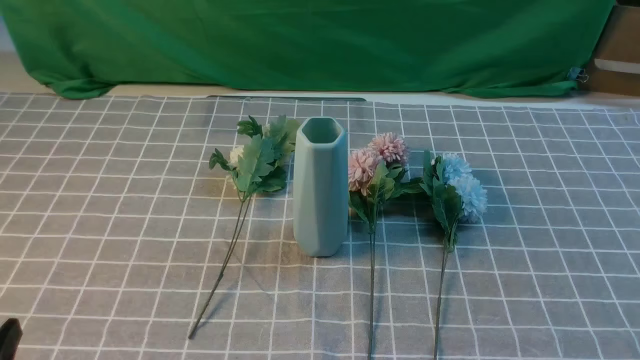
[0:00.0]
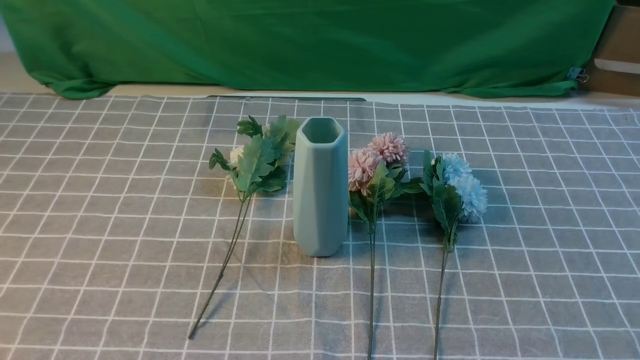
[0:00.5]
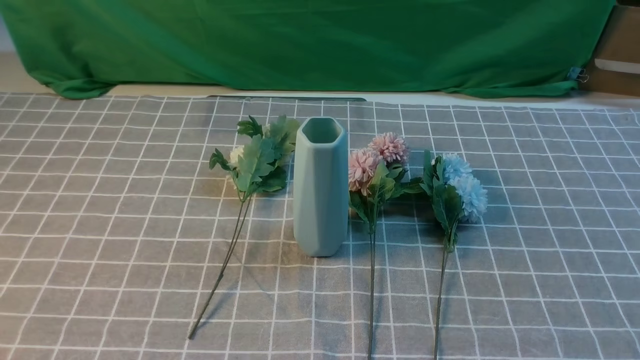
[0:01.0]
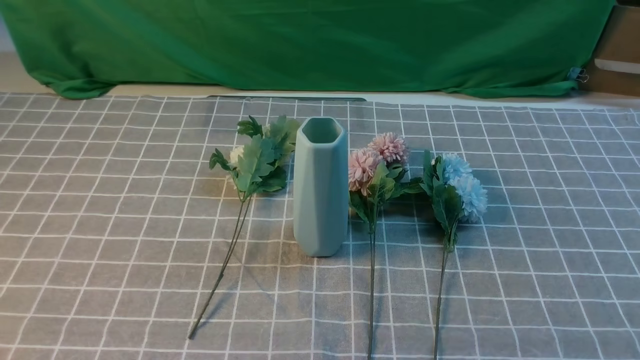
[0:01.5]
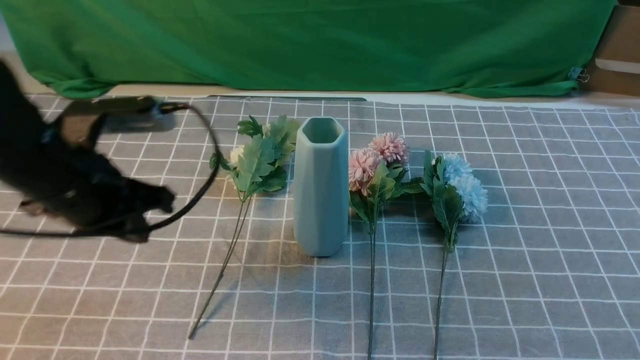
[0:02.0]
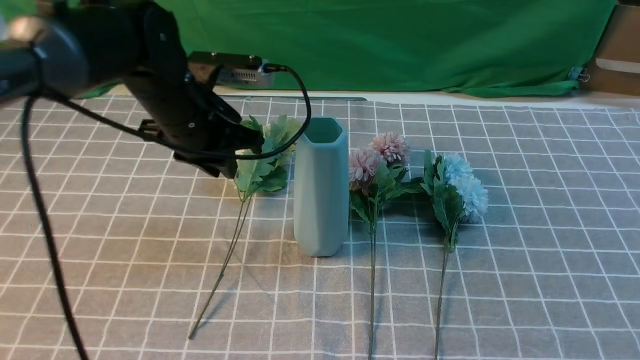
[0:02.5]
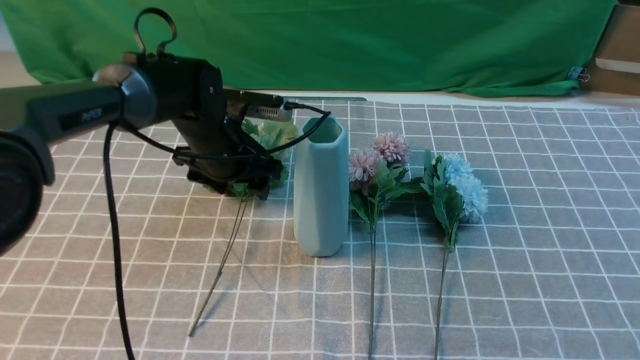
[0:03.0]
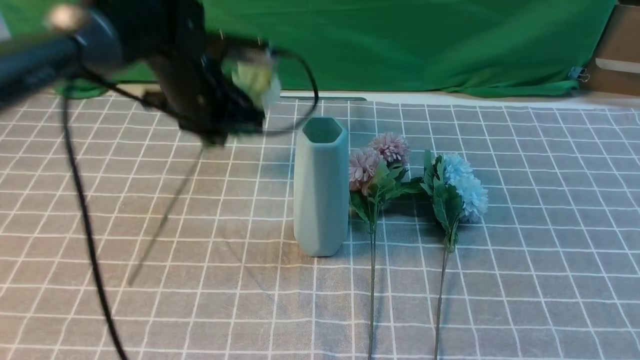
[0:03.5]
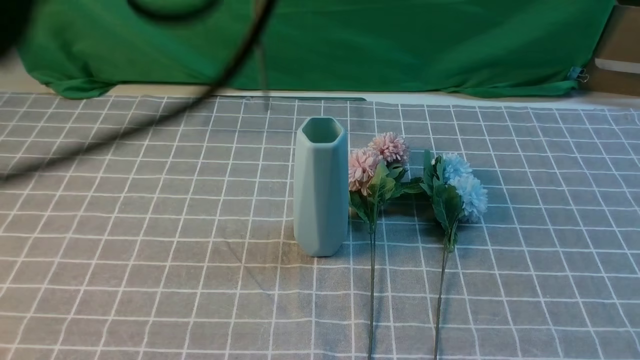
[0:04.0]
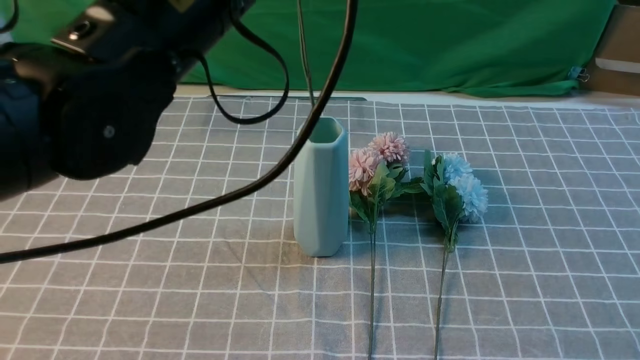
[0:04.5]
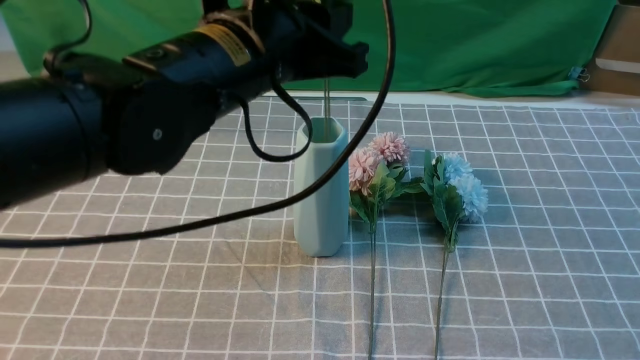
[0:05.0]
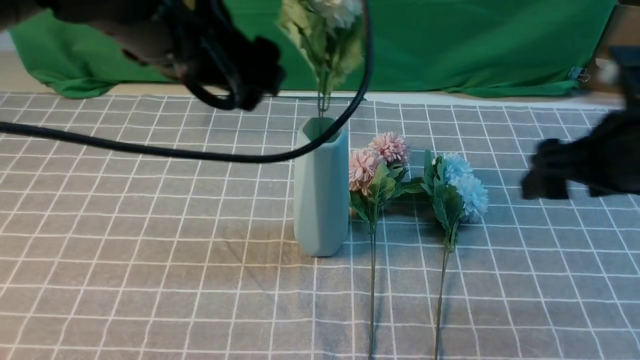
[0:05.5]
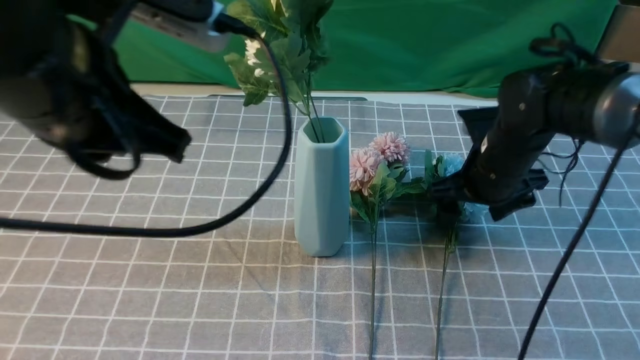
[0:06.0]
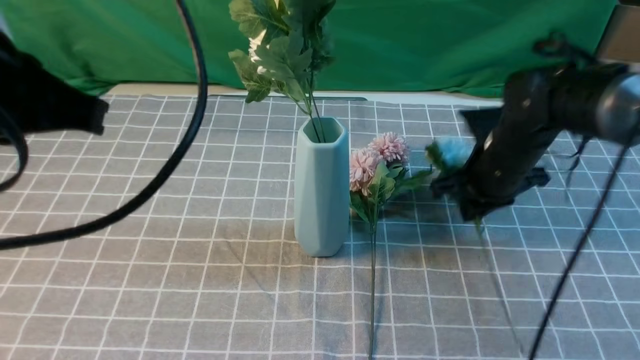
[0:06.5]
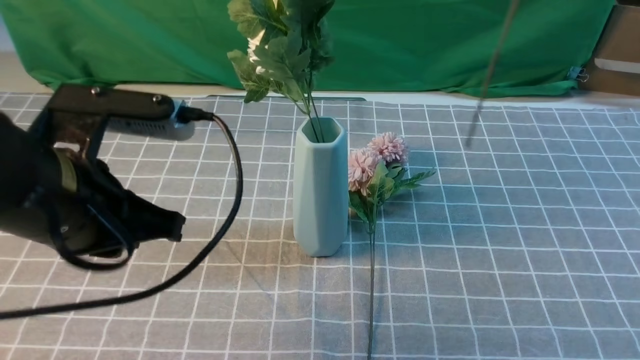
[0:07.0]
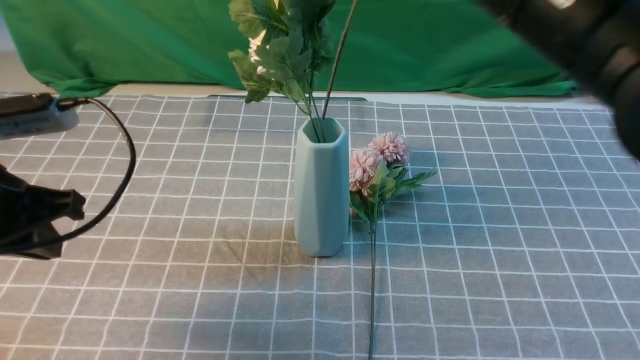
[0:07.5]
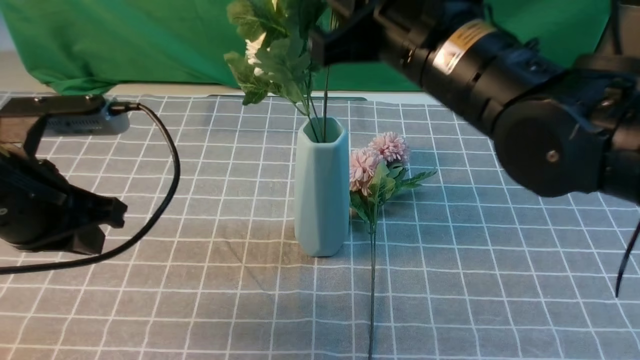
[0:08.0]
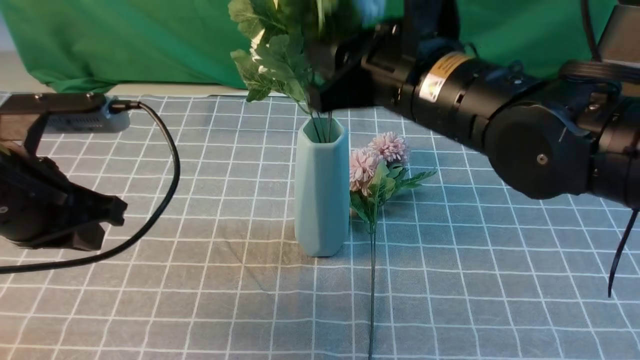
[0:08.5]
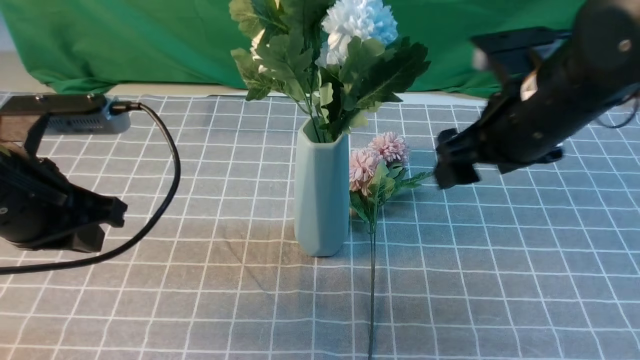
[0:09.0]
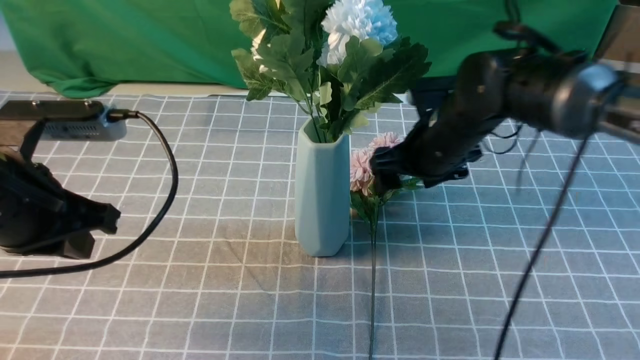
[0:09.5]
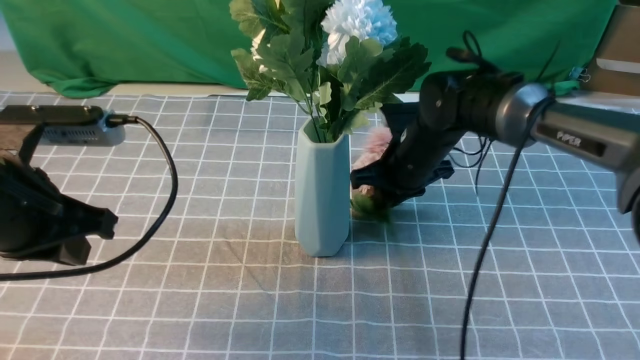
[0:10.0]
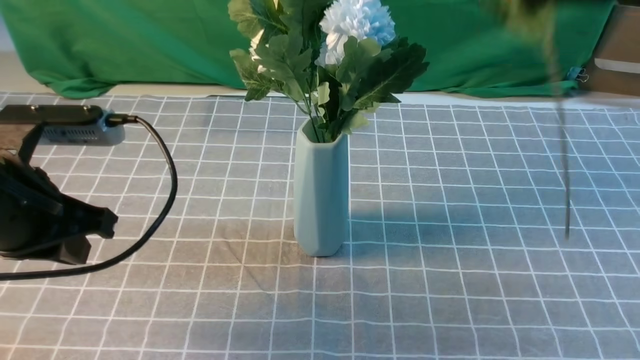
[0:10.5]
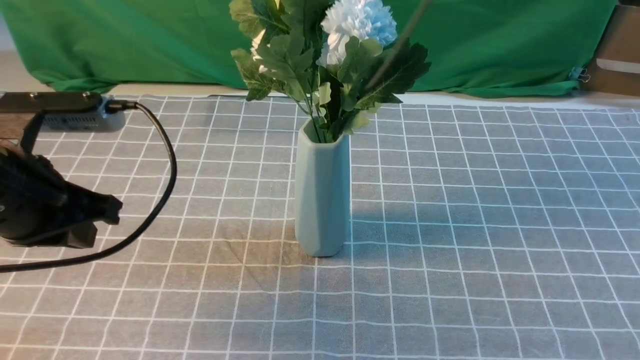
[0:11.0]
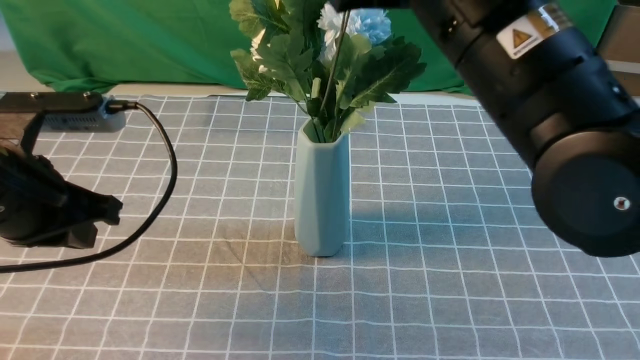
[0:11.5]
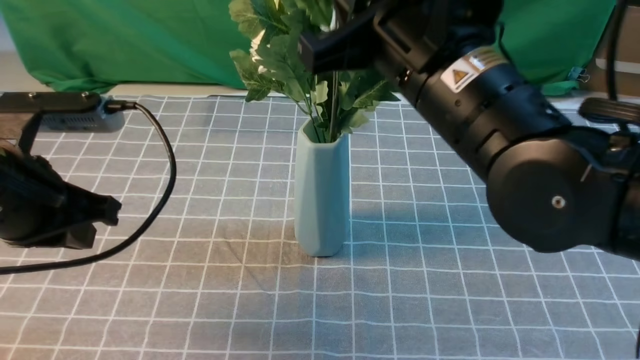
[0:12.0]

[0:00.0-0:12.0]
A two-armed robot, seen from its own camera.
Task of the whole recording: insert the flowers into the vase on the table with the grey tablecloth.
Step, 0:00.0 to 0:03.0: use the left arm to grab a bunch of fresh flowers.
Step, 0:03.5 to 0:05.0: use the left arm to insert the flowers into the vase.
Step, 0:05.5 to 0:06.0: use the right arm to grab a bunch of fresh flowers.
Step, 0:06.5 to 0:08.5: use the right arm to insert the flowers into the vase.
Step, 0:09.0 to 0:09.5: use the right arm to grab a bunch of fresh flowers.
0:00.0 to 0:02.0: The right gripper is displaced upward by some 10 cm; the left gripper travels forward by approximately 25 cm, and closes up.
0:02.0 to 0:04.0: The left gripper shifts approximately 20 cm upward and to the right, and opens, then closes once more. The right gripper heads forward, covering about 10 cm.
0:04.0 to 0:06.0: The left gripper shifts roughly 10 cm backward and downward, and opens and closes again. Meanwhile the right gripper heads forward, downward and to the left, covering roughly 30 cm, and opens.
0:06.0 to 0:08.0: The right gripper is displaced upward, to the left and backward by approximately 25 cm, and closes its fingers. Meanwhile the left gripper shifts about 15 cm downward and to the left.
0:08.0 to 0:10.0: The right gripper heads downward and forward, covering about 20 cm, and opens, then closes again.
0:10.0 to 0:12.0: The right gripper travels backward and upward by approximately 25 cm.

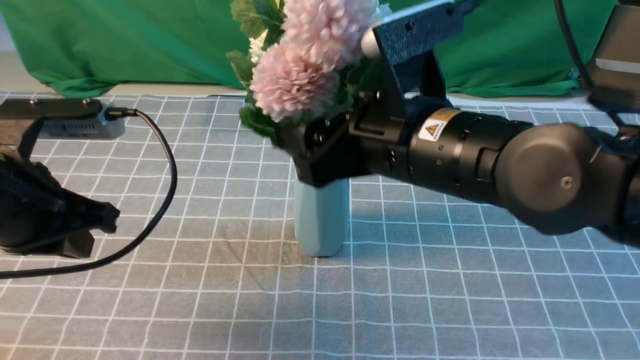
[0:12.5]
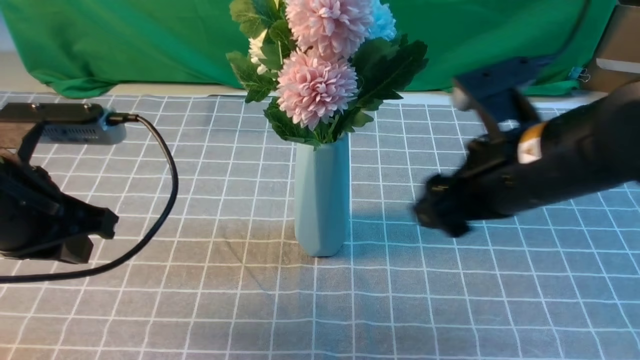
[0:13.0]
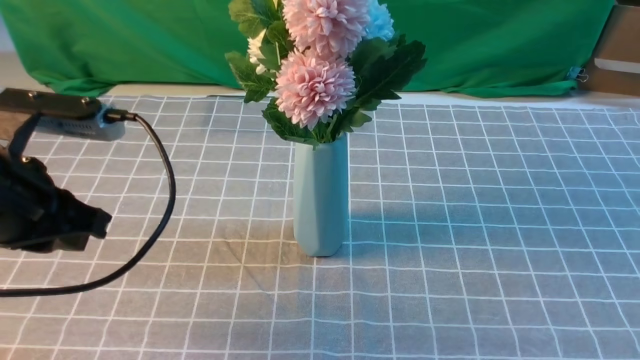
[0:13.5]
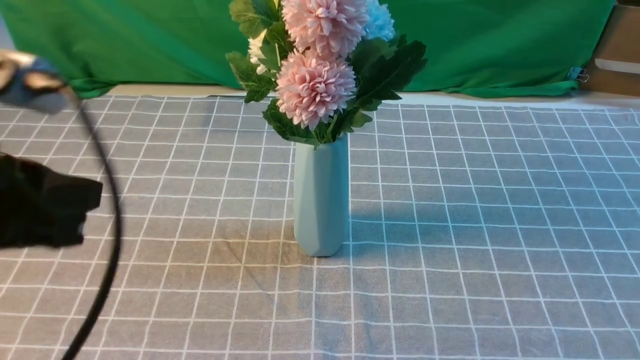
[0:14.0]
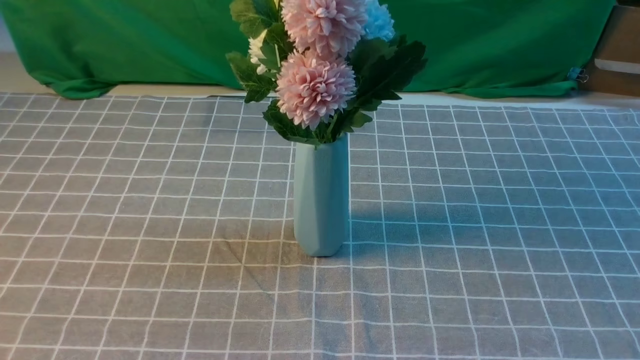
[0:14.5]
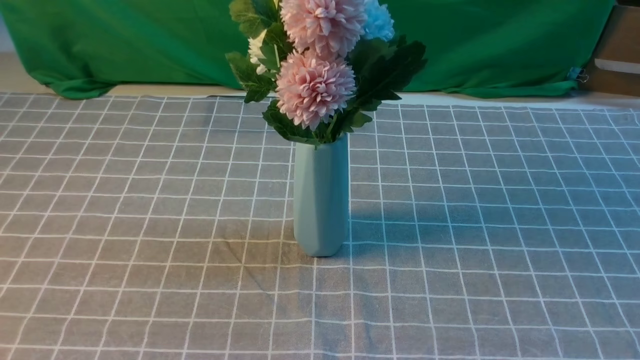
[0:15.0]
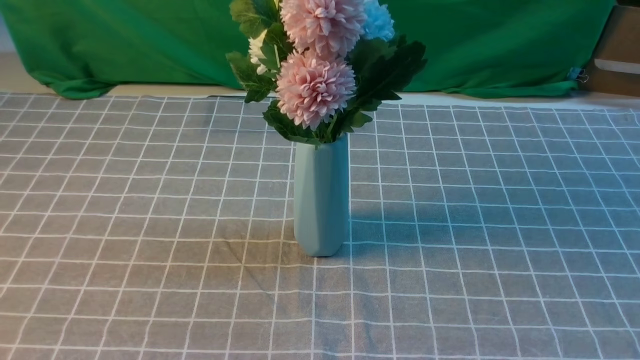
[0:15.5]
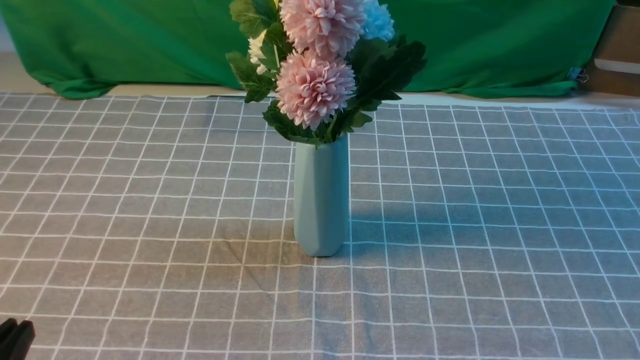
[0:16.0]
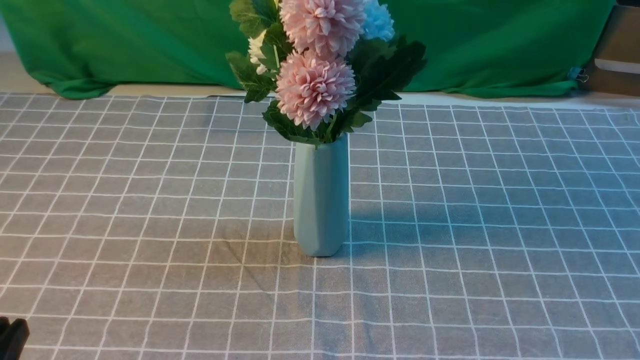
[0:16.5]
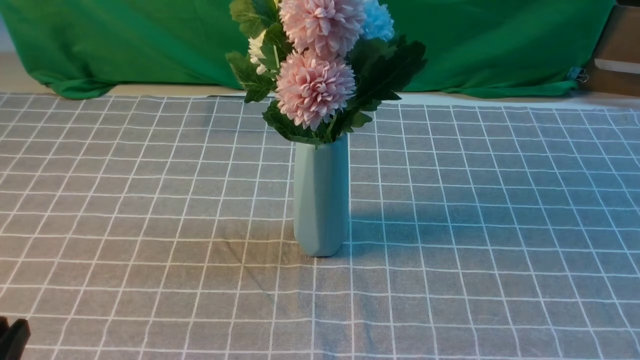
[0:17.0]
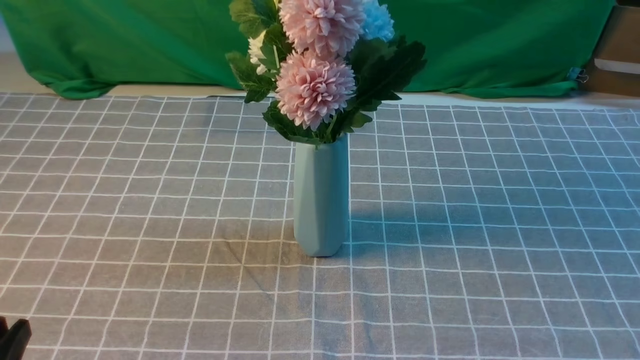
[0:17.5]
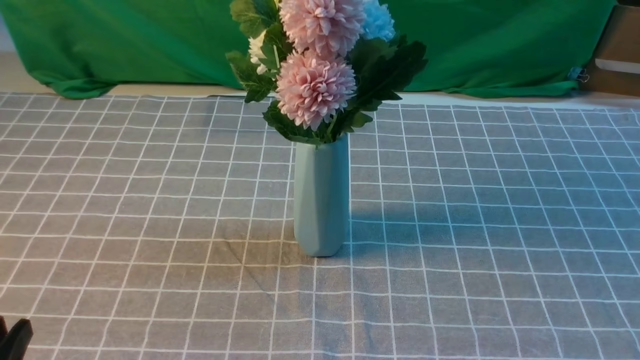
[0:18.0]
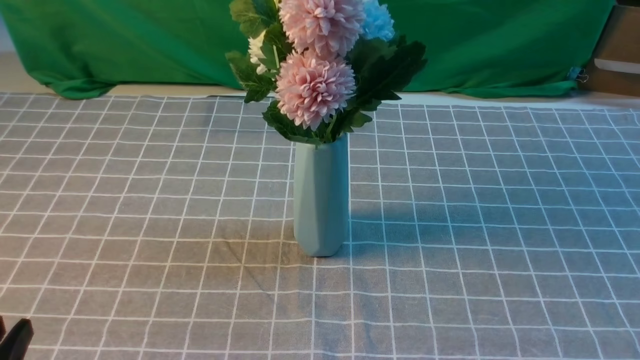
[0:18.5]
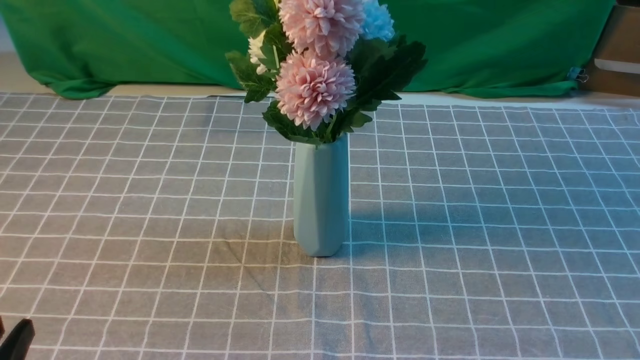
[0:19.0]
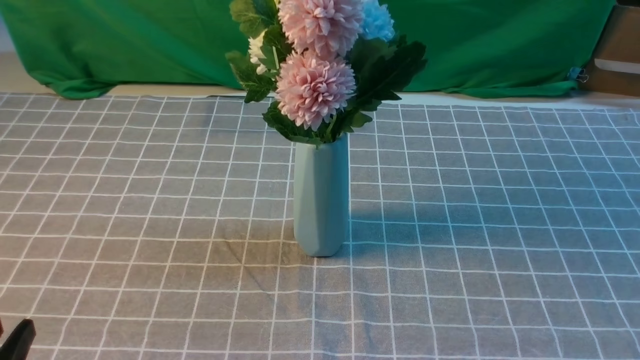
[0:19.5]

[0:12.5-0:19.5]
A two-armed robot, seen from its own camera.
Task of the whole recording: insert the flowers into the vase on the table with the grey tablecloth.
0:12.5 to 0:14.5: The left gripper goes approximately 20 cm backward. Meanwhile the right gripper moves backward and to the right, some 35 cm, and closes its fingers.
